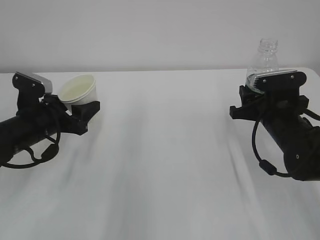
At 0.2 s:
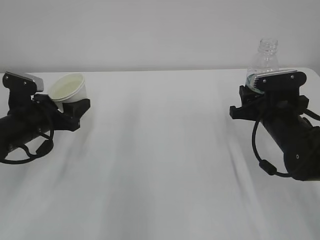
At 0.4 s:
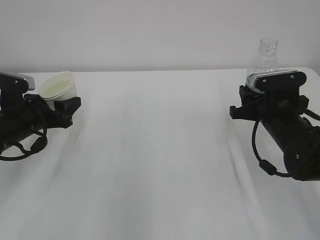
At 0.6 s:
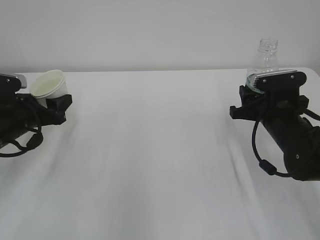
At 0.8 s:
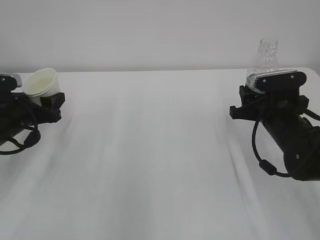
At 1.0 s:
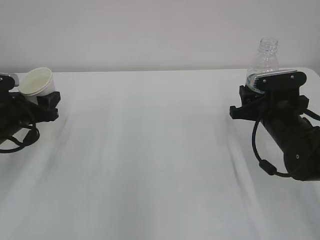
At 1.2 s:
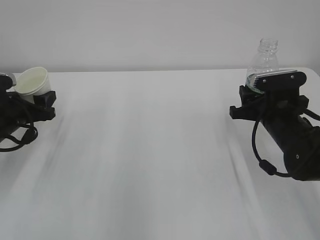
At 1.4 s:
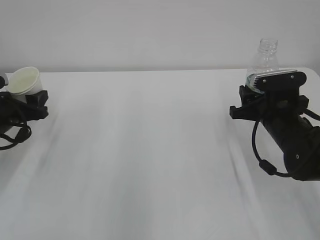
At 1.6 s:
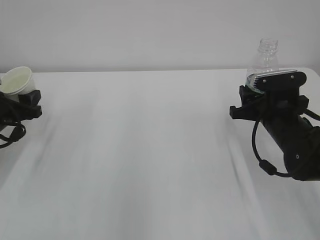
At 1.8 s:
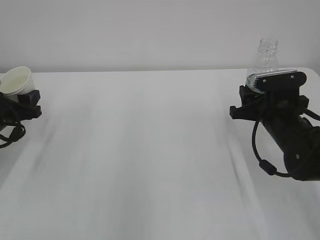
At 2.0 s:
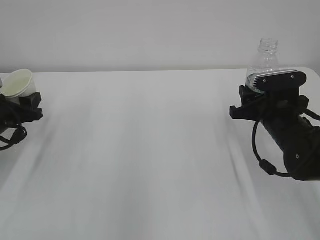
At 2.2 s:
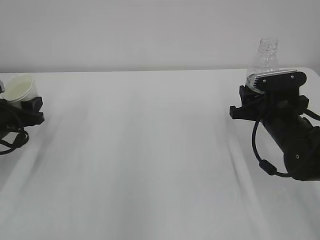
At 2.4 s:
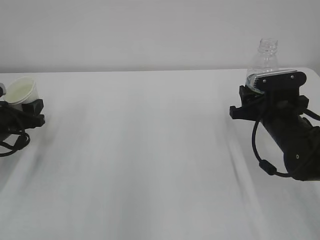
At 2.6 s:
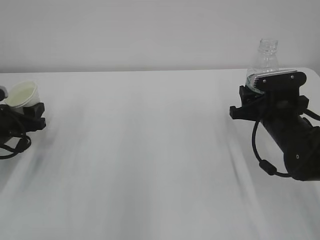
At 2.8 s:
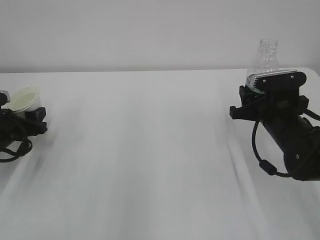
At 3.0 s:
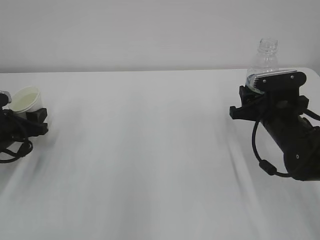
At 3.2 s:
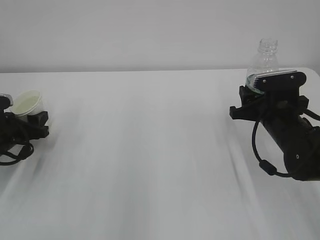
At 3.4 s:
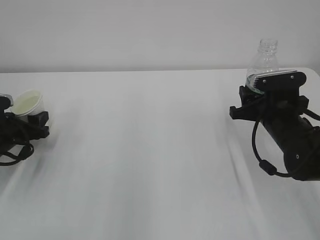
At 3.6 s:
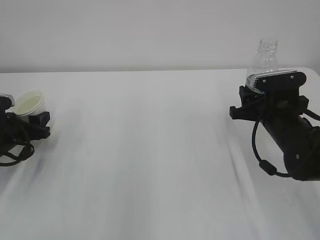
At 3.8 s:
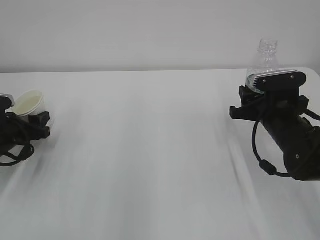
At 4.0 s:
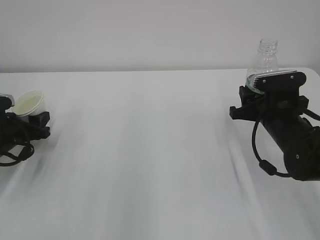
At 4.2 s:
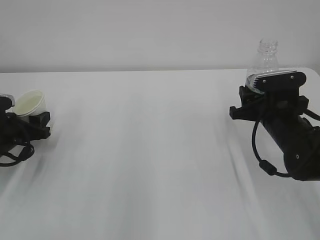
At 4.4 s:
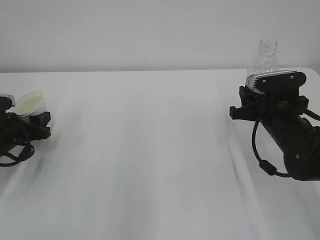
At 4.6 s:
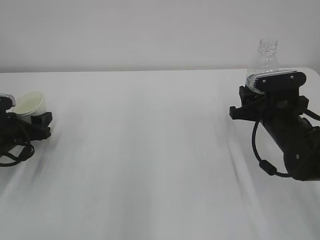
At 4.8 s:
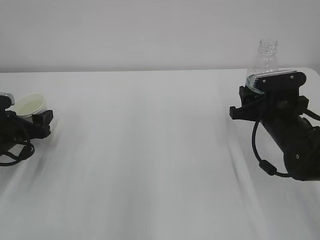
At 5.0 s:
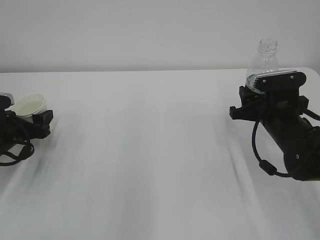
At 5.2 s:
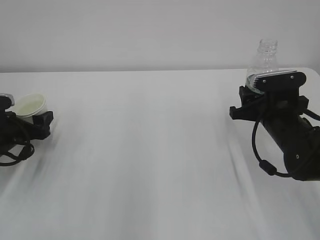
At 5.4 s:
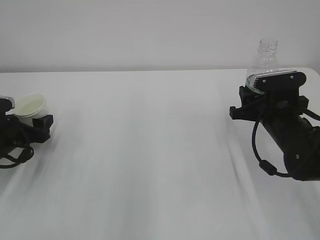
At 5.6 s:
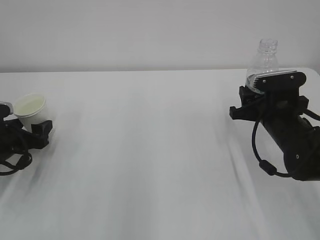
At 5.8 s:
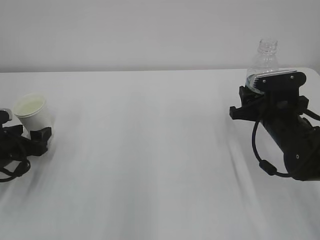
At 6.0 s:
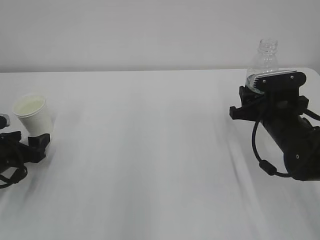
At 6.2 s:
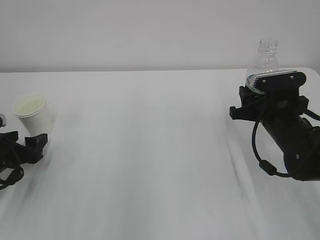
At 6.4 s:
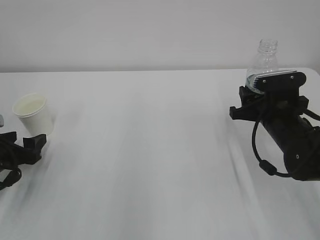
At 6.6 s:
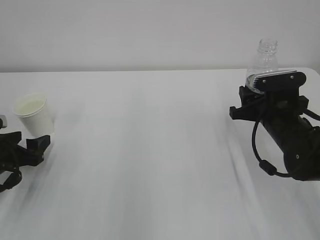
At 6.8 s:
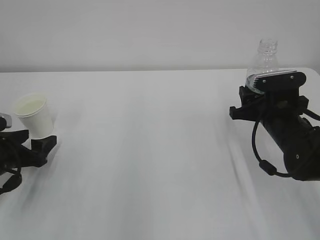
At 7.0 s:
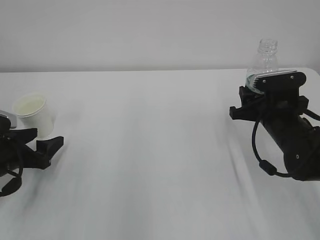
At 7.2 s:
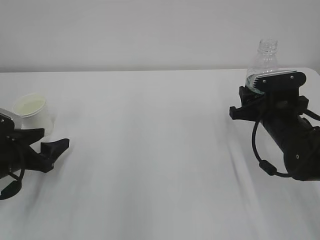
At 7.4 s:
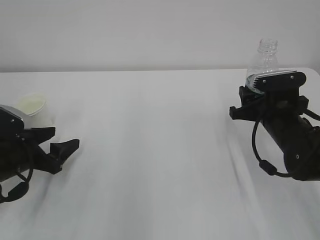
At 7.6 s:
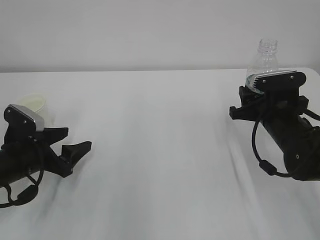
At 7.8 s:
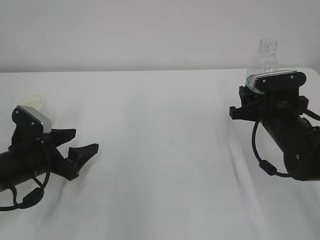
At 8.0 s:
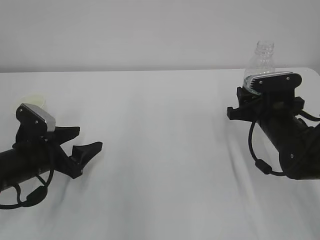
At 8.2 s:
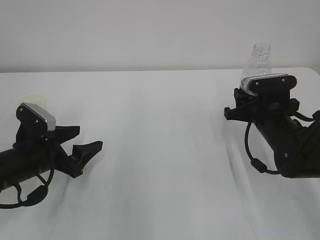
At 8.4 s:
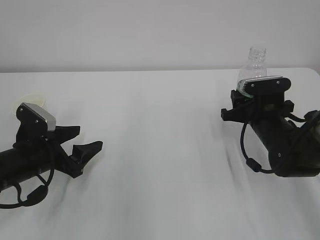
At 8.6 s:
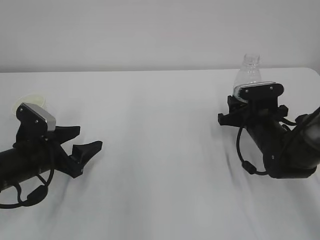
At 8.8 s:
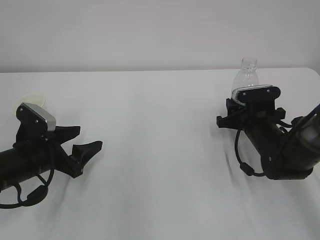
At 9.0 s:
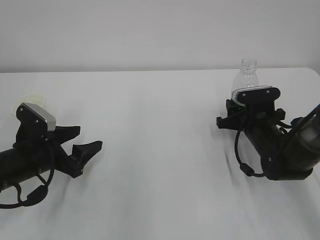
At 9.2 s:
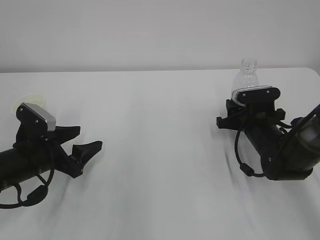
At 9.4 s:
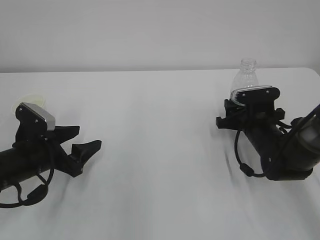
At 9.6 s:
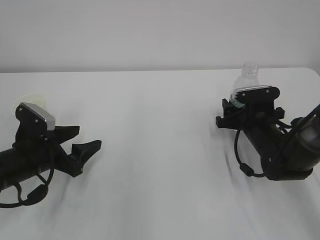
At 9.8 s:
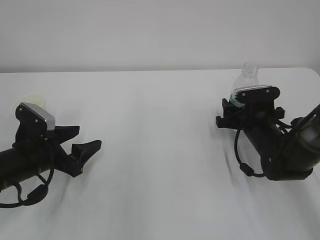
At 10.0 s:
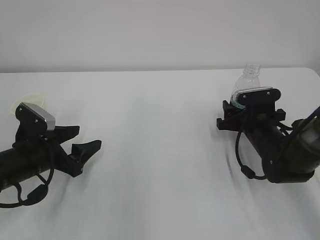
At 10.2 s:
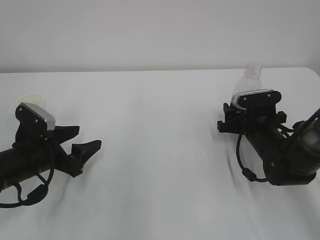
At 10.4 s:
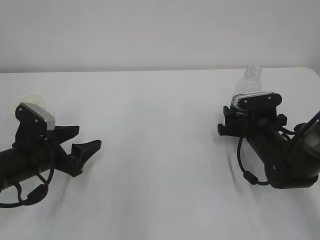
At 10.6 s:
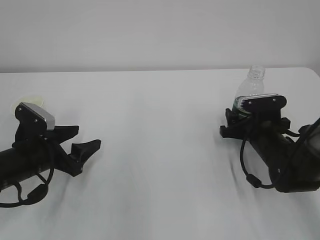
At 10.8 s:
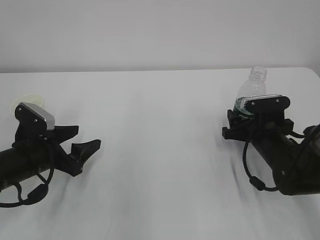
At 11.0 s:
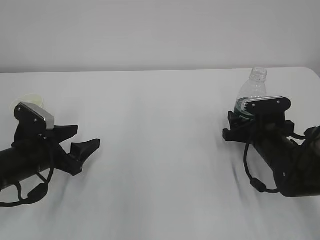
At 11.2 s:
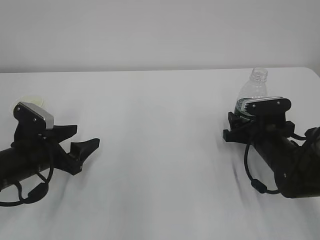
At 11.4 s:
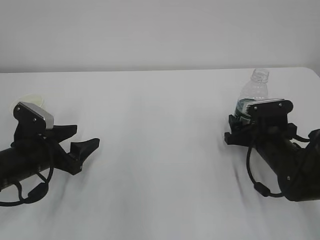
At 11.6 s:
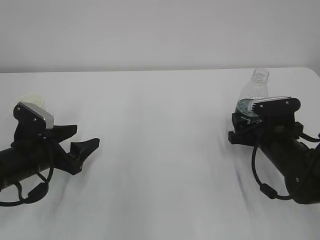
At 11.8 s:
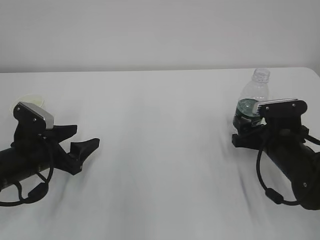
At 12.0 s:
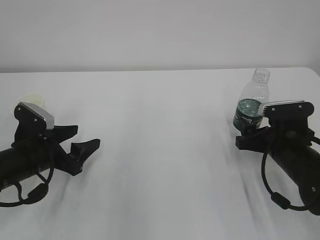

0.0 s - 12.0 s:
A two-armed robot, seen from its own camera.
0.0 s - 1.6 s: The left gripper is displaced to the left by about 10 cm.
1.6 s - 3.0 s: The grippers stay close to where they were, moving slightly.
3.0 s - 4.4 s: Both grippers stay put.
4.4 s - 6.0 s: The left gripper opens up.
6.0 s - 7.6 s: The left gripper moves to the right, roughly 5 cm.
7.6 s - 9.0 s: The right gripper goes about 5 cm downward.
9.0 s - 10.4 s: The right gripper opens its fingers.
10.4 s - 12.0 s: The right gripper shifts about 5 cm backward.

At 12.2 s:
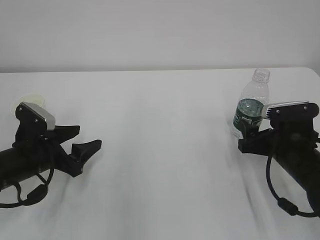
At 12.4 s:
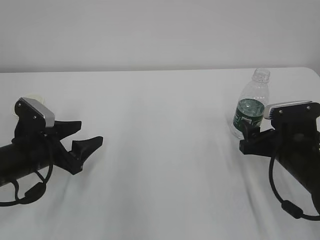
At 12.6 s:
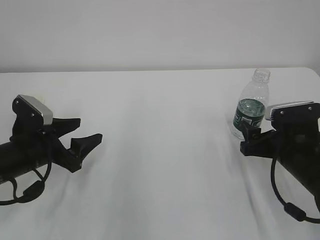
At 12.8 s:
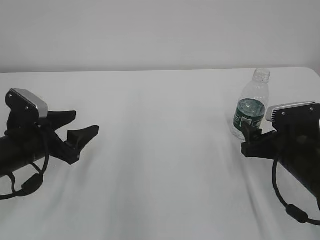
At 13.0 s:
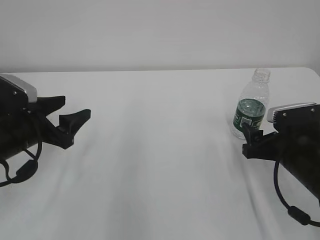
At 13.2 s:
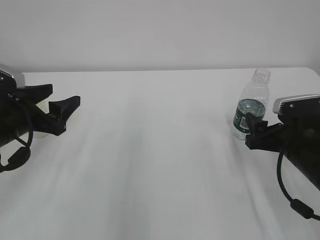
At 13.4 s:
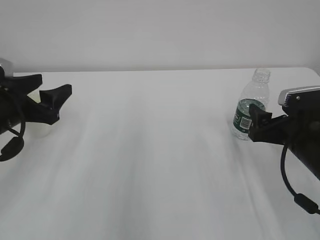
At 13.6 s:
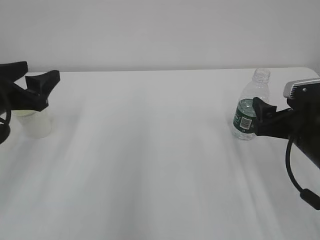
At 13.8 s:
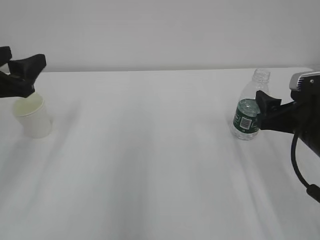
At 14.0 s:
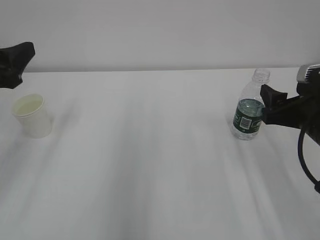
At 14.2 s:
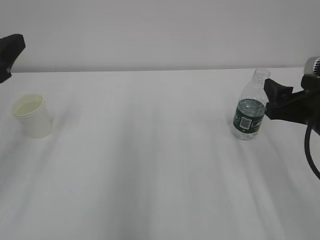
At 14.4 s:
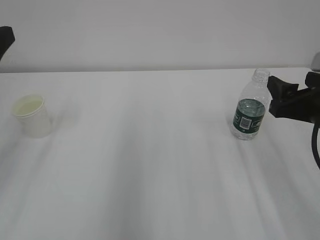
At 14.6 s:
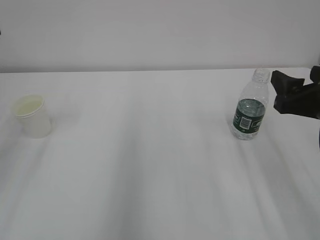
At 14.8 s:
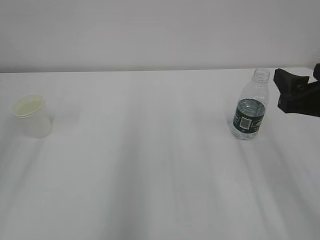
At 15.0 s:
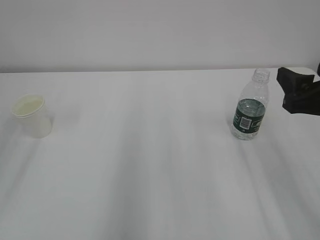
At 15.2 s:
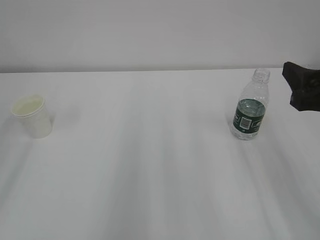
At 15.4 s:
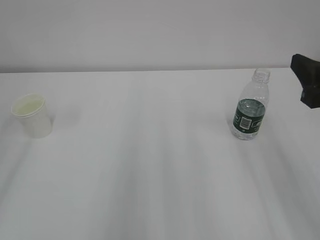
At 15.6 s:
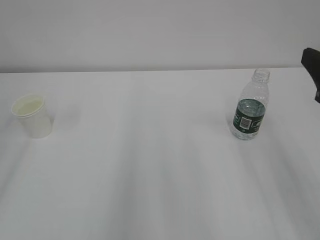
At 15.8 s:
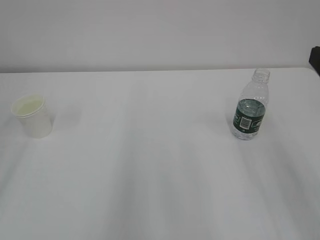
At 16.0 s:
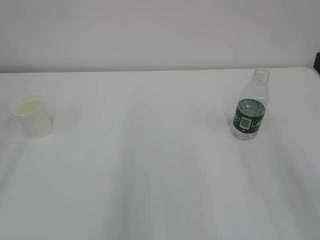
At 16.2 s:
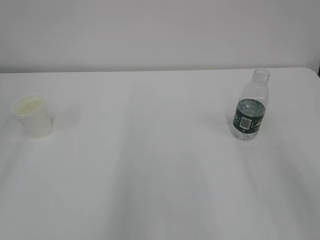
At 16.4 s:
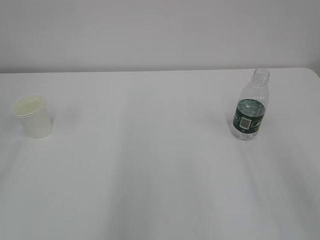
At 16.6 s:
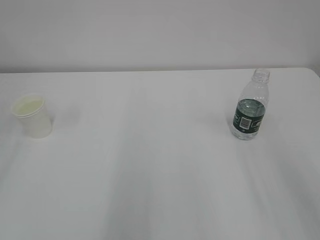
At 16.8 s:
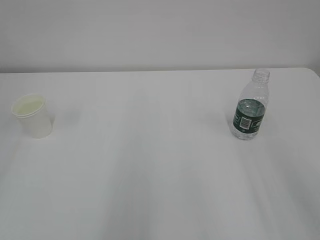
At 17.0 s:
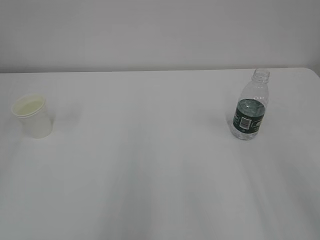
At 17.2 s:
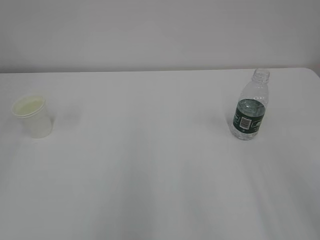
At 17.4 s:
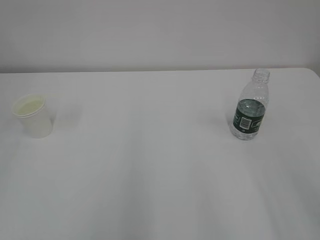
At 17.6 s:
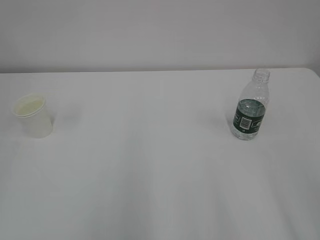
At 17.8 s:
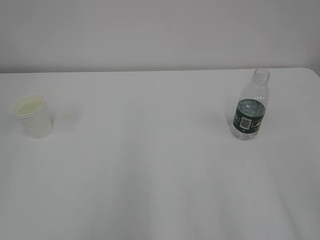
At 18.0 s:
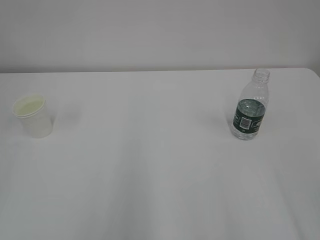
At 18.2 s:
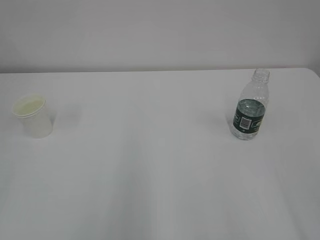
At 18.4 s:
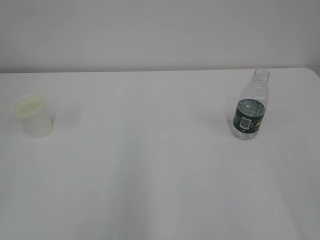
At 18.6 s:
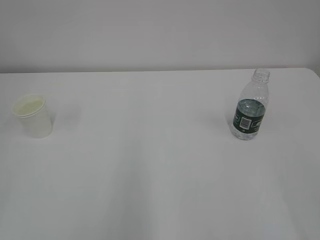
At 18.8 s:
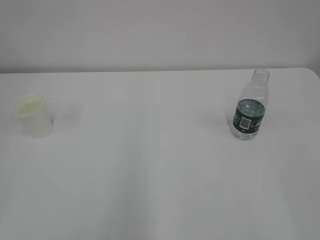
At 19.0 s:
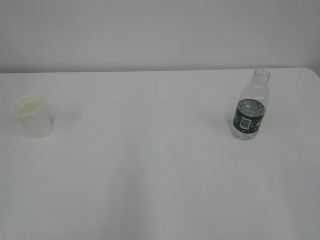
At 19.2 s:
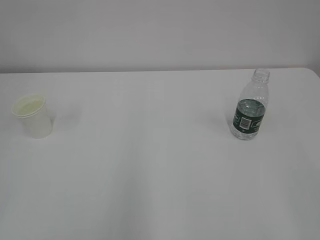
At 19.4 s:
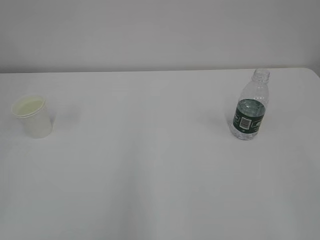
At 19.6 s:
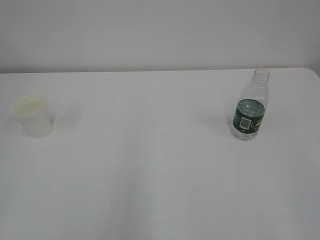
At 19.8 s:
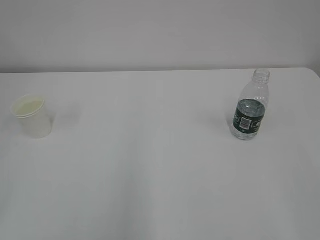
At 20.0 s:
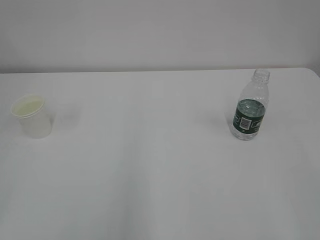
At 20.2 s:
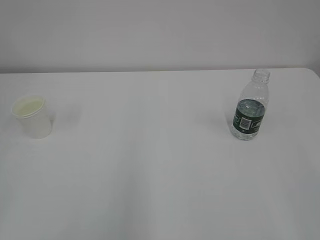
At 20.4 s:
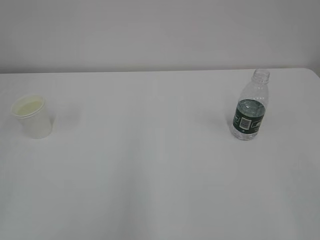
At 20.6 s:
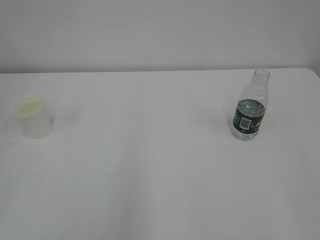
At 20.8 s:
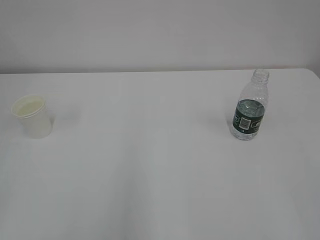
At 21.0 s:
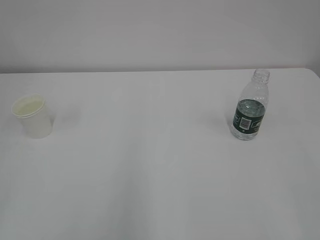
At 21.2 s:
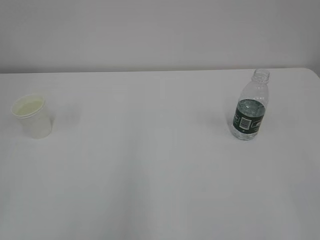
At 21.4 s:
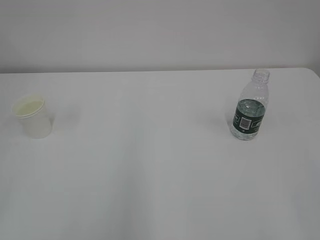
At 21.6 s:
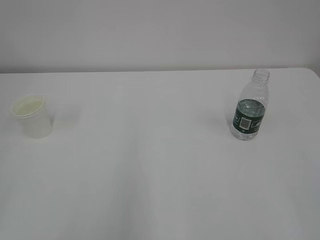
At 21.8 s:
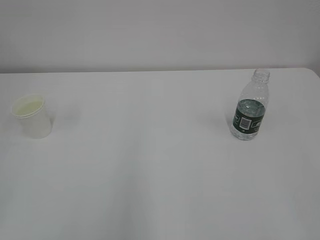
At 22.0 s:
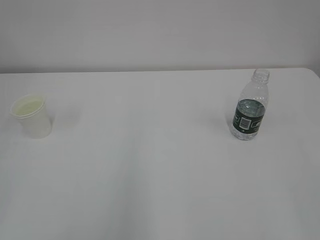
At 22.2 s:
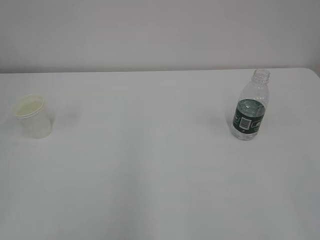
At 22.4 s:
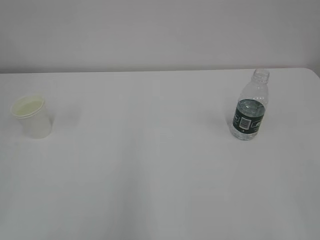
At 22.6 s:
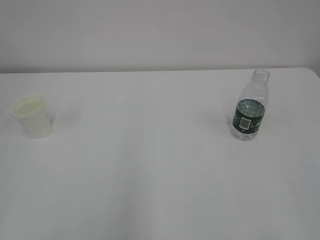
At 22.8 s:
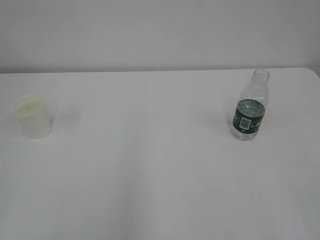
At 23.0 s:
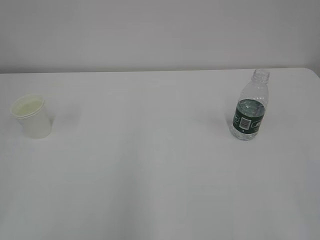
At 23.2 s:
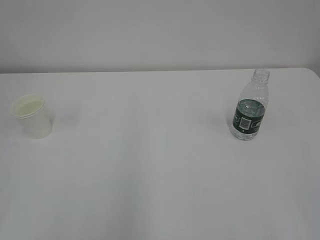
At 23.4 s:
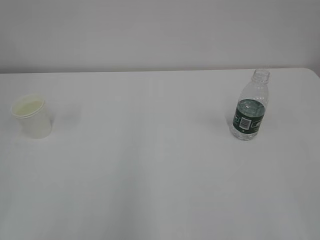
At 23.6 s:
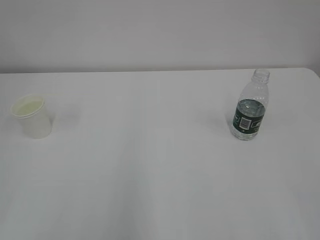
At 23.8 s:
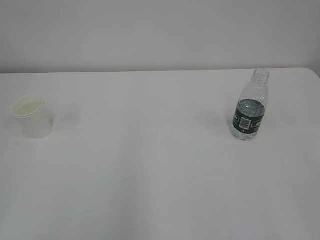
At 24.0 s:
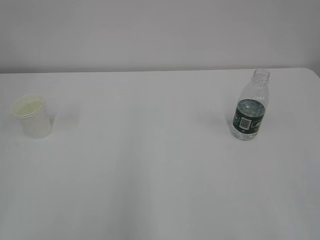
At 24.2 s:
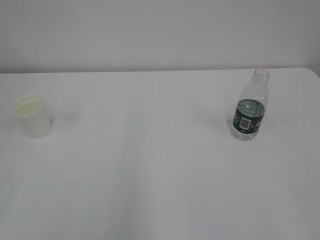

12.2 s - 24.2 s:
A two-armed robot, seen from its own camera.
12.2 s - 13.8 s: The right gripper goes about 10 cm upward; the left gripper moves upward, approximately 15 cm.
13.8 s - 15.2 s: The left gripper shifts approximately 15 cm backward and upward. Meanwhile the right gripper shifts some 10 cm upward.
15.2 s - 16.6 s: The right gripper is displaced backward by roughly 10 cm.
22.6 s - 24.2 s: Neither gripper changes place.
